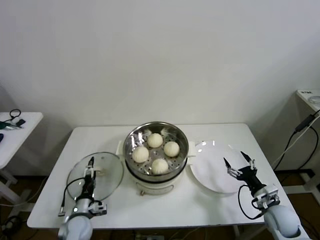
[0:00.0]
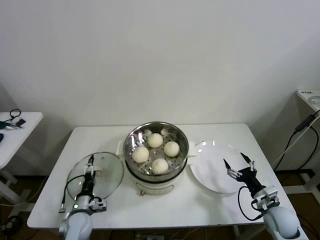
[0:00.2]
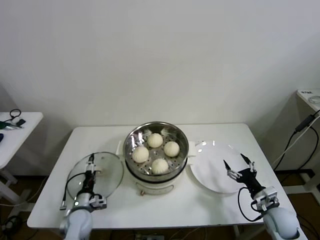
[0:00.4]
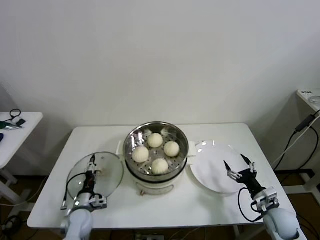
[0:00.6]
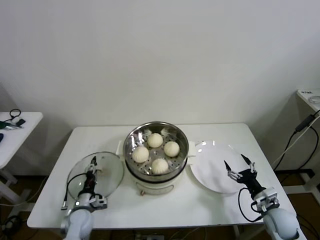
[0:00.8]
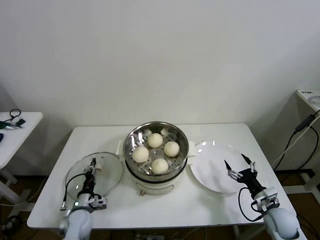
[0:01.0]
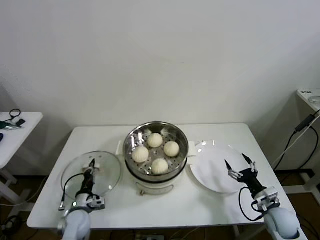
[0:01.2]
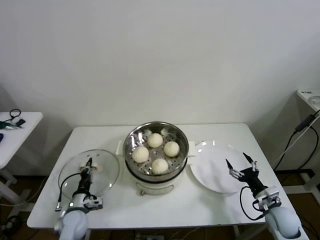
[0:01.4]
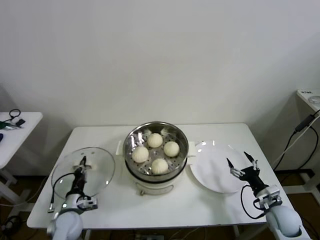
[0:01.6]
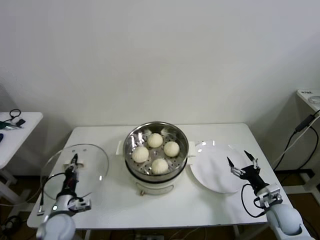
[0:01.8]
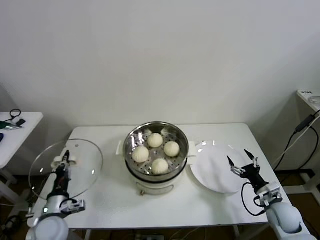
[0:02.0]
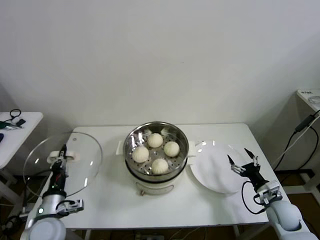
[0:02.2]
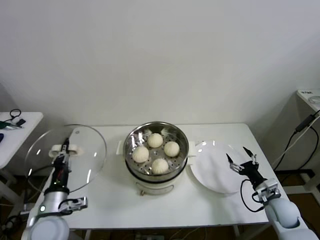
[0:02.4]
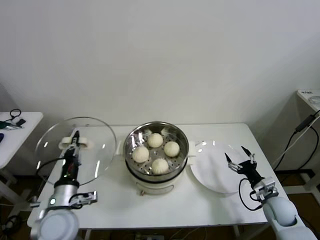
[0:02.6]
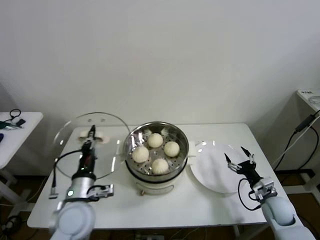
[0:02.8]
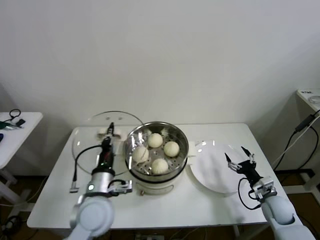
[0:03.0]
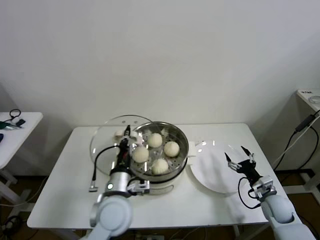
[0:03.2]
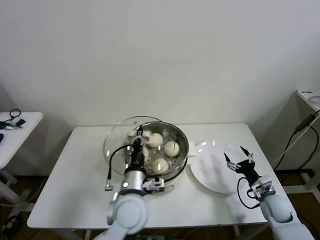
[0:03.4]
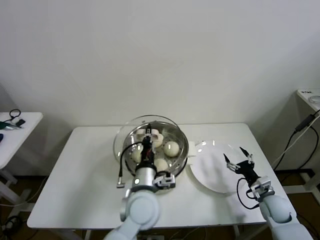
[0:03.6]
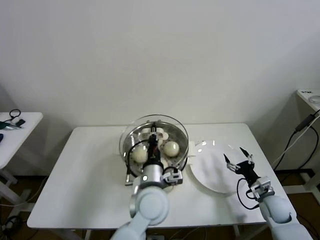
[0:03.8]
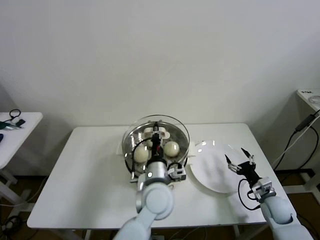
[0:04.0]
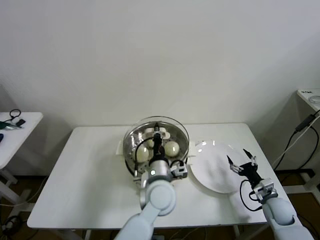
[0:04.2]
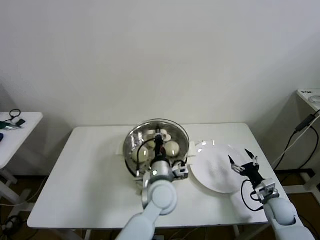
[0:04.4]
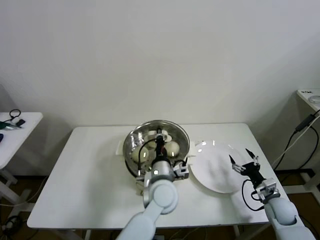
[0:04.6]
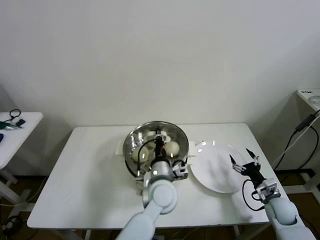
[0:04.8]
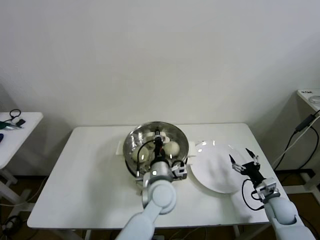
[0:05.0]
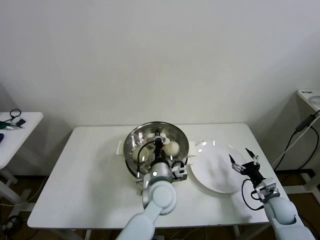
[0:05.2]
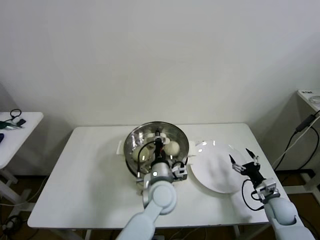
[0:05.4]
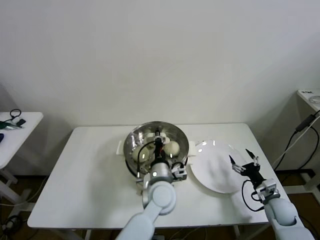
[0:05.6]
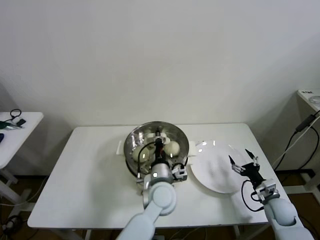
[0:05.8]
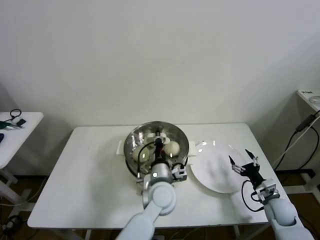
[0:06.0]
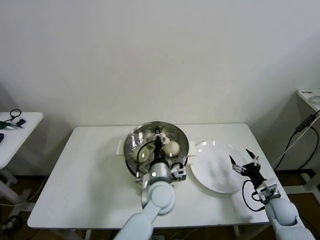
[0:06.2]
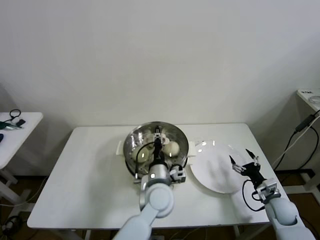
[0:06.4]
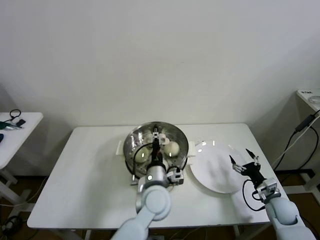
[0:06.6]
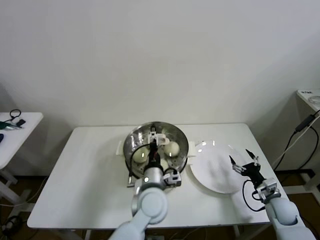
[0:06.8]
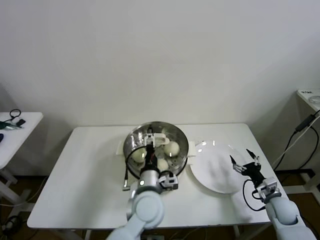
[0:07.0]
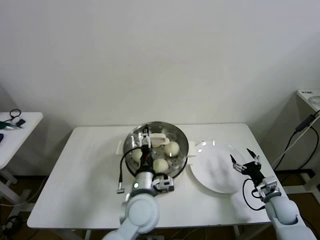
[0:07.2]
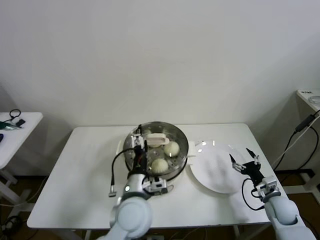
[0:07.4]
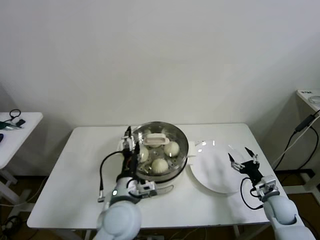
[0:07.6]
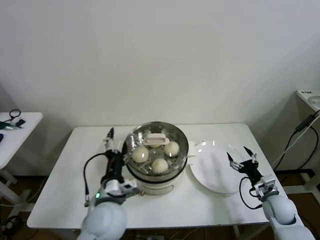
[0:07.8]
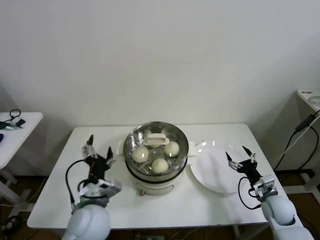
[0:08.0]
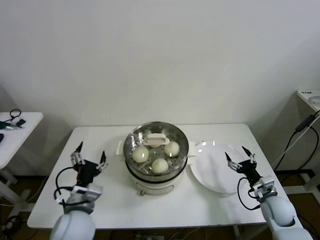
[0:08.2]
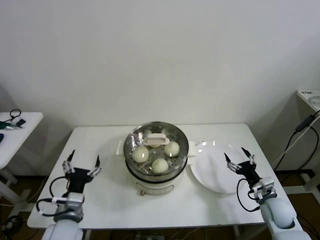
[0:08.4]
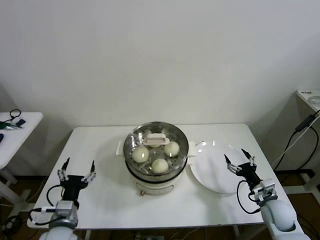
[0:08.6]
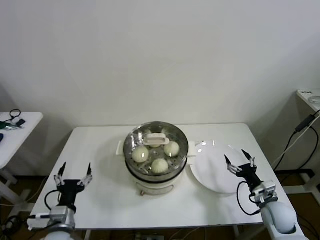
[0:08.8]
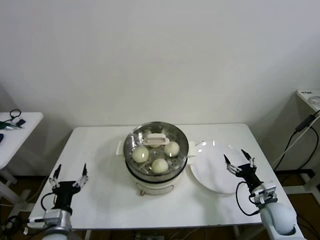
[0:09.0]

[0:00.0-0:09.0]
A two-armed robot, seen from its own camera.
Step, 0:01.2 to 0:06.2: Place the pot lid on the steamer with left gripper.
0:00.0 to 0:01.6: The left gripper closes up.
0:01.6 to 0:03.0: The left gripper heads upward and to the right, covering approximately 25 cm.
0:03.0 to 0:04.4: The left gripper heads to the right, covering roughly 20 cm.
0:04.4 to 0:06.0: The grippers move only a little.
0:06.0 to 0:07.6: The left gripper heads to the left, backward and upward, covering roughly 15 cm, and opens.
0:07.6 to 0:09.0: The left gripper is displaced to the left and downward by some 25 cm.
